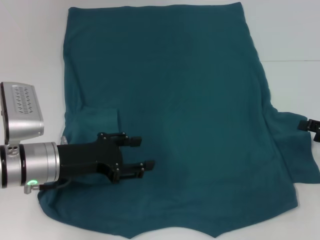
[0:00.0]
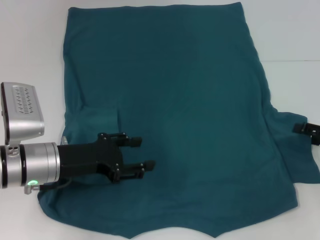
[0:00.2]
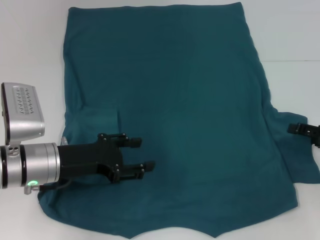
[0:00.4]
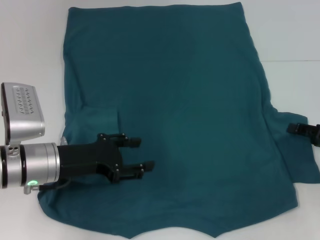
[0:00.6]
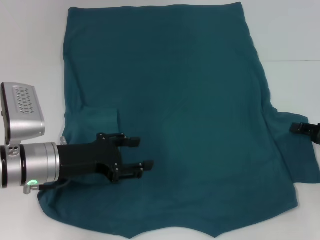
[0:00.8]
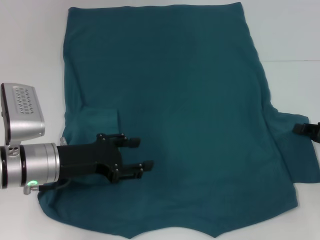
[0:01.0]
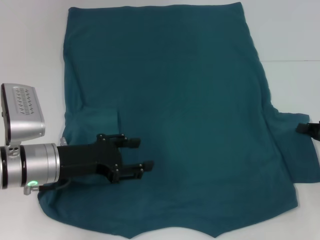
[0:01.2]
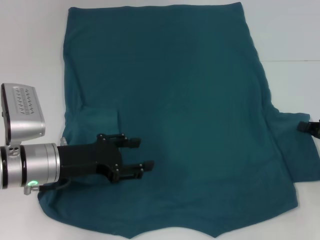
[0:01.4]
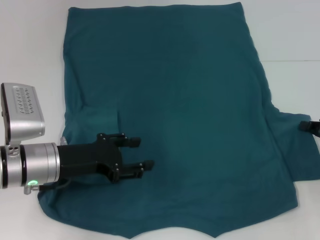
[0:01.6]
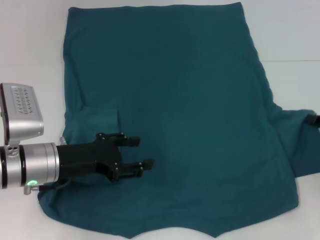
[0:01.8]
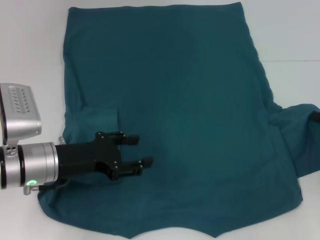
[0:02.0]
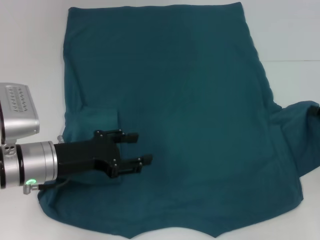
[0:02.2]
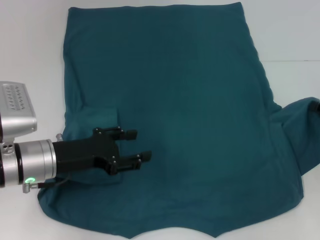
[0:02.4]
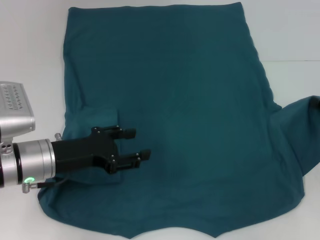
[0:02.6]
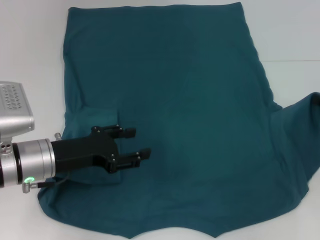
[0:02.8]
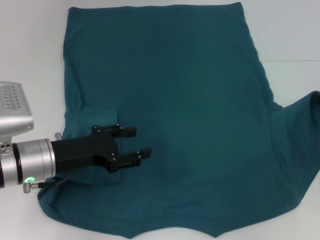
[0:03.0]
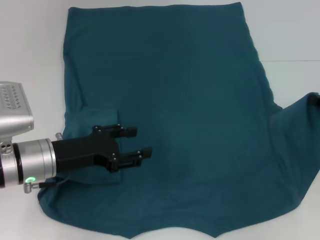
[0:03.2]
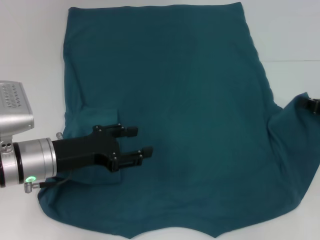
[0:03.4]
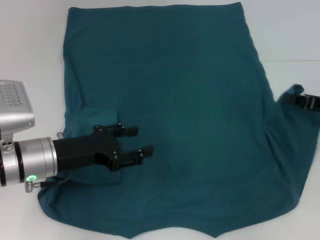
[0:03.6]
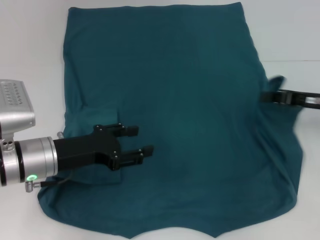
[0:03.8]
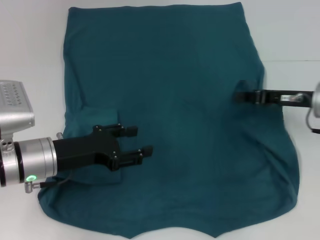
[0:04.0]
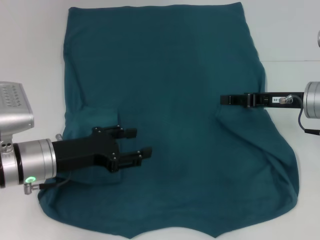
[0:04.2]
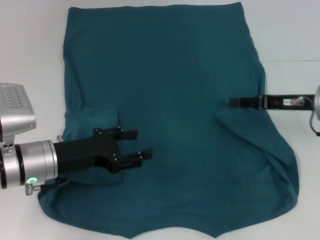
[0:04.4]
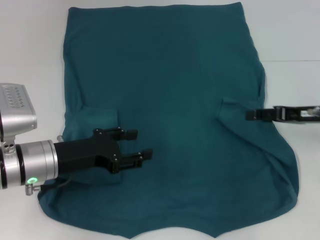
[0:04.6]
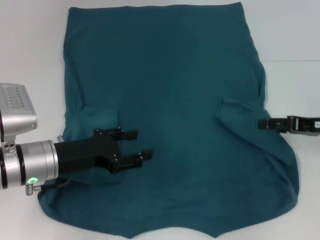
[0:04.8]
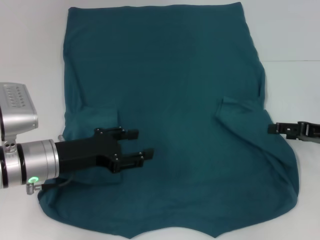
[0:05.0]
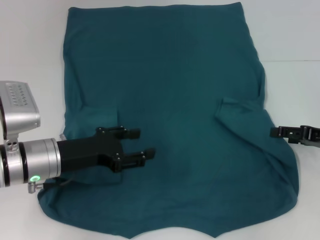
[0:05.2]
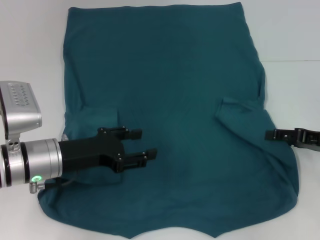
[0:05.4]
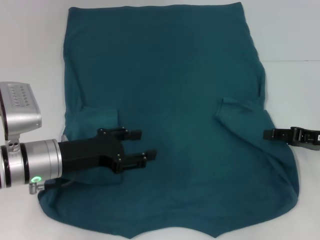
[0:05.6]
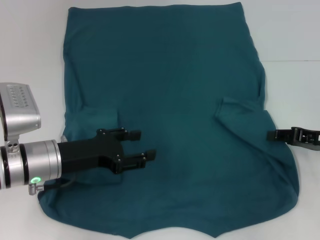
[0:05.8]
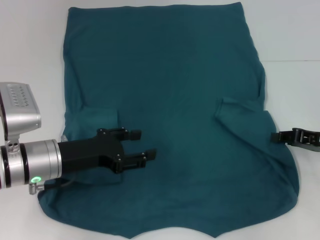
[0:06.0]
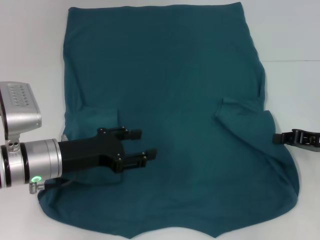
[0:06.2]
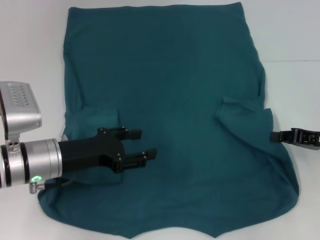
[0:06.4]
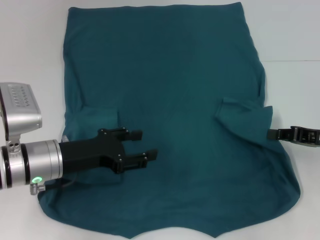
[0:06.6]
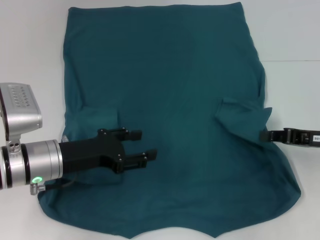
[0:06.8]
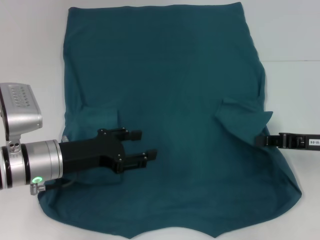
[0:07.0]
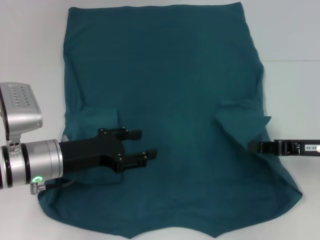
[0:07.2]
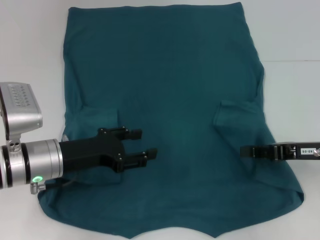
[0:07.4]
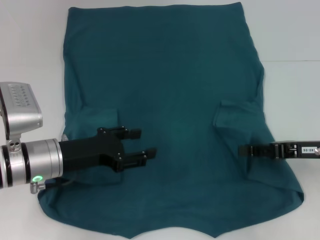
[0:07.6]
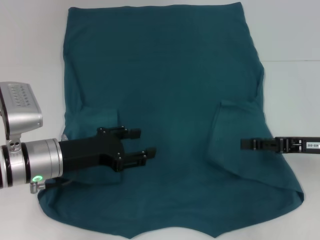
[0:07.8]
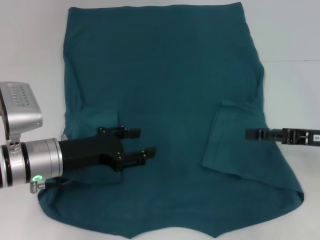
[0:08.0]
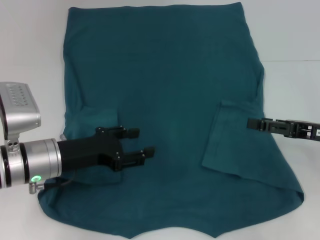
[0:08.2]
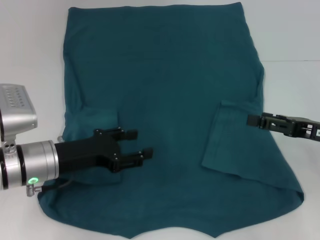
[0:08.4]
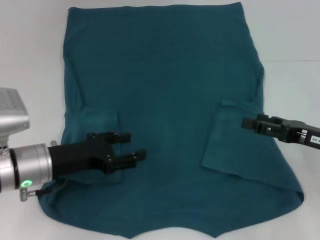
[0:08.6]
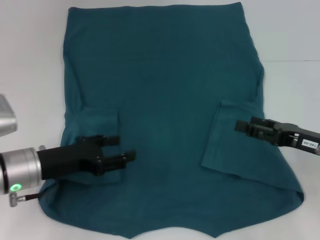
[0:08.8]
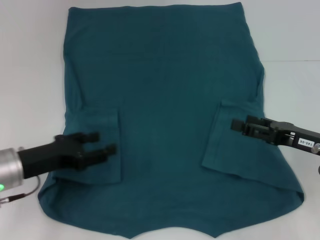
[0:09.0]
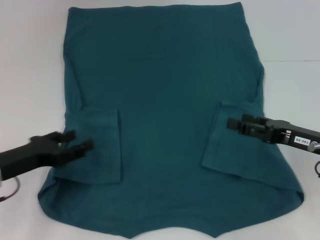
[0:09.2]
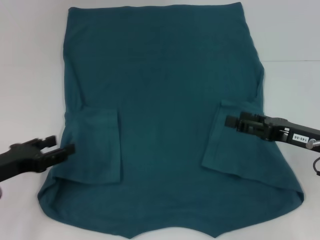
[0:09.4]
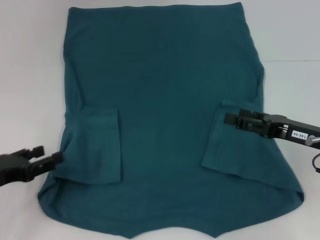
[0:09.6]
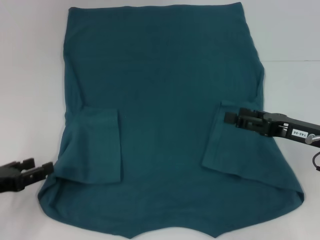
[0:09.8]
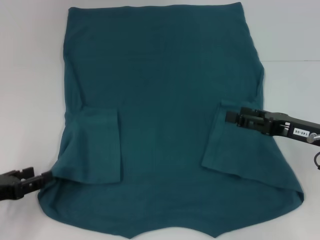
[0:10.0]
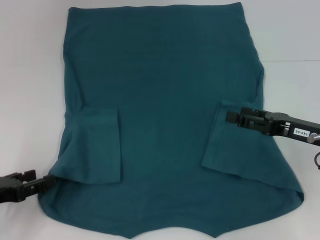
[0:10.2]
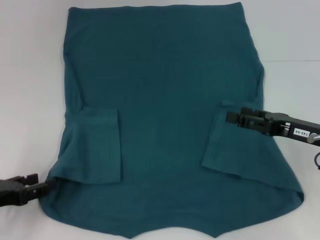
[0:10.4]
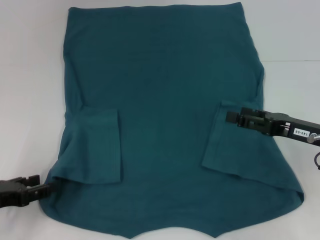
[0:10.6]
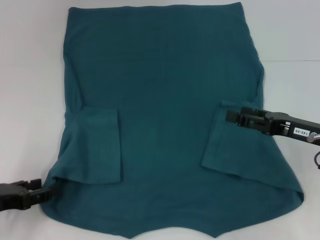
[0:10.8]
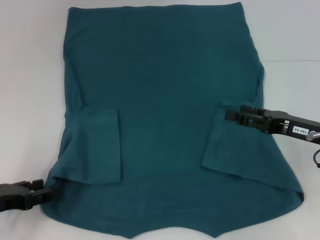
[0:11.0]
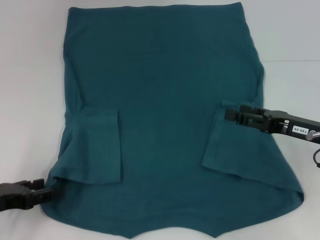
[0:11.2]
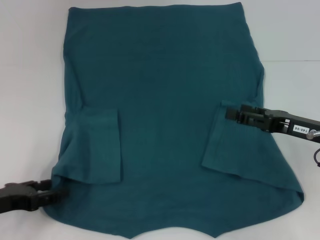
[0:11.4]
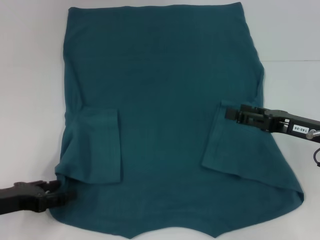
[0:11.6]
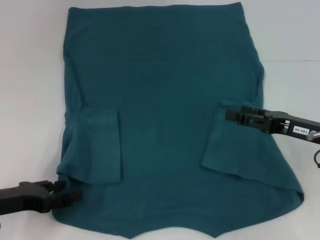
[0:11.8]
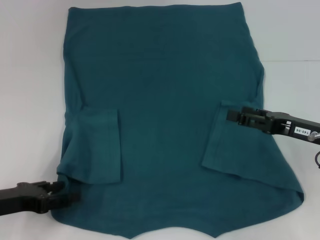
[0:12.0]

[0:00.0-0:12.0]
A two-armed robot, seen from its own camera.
Step, 0:00.0 to 0:07.8: Fold the bottom right sleeve to the right.
0:00.0 to 0:01.6: The right gripper closes.
0:03.0 to 0:04.4: The right gripper moves to the left, approximately 10 cm.
0:04.4 to 0:06.0: The right gripper moves to the right, approximately 5 cm, and opens, then closes again.
0:07.6 to 0:09.0: The left gripper heads to the left, covering roughly 5 cm, while the right gripper opens.
0:09.0 to 0:10.4: The left gripper is displaced to the left and backward by some 10 cm.
0:10.4 to 0:12.0: The grippers stay close to where they were, moving slightly.

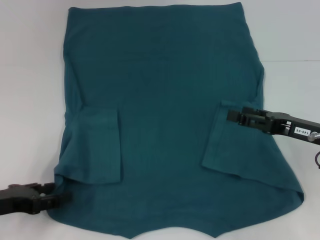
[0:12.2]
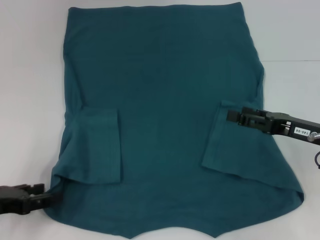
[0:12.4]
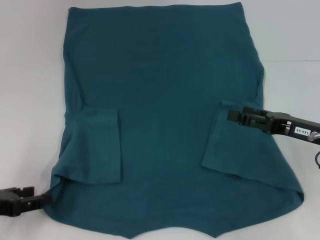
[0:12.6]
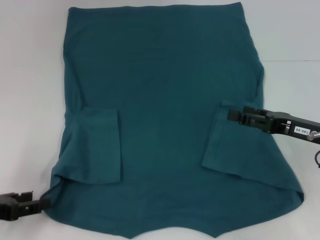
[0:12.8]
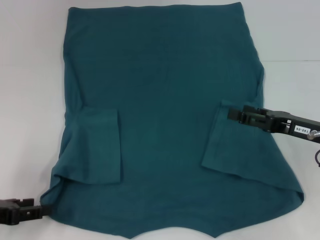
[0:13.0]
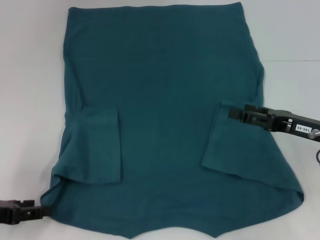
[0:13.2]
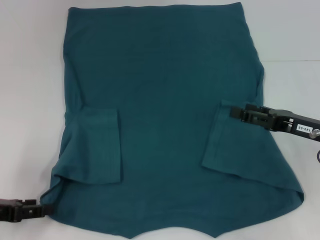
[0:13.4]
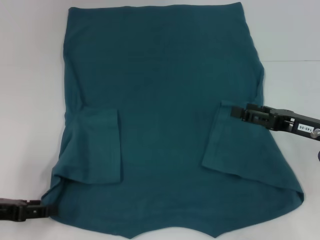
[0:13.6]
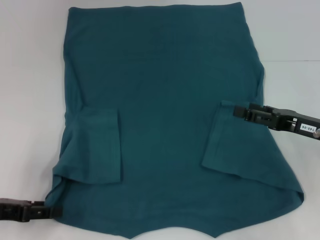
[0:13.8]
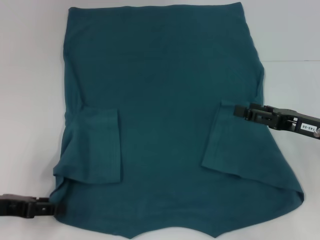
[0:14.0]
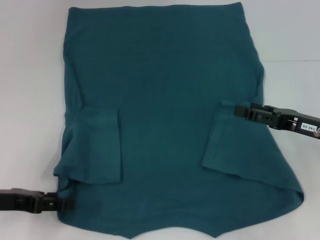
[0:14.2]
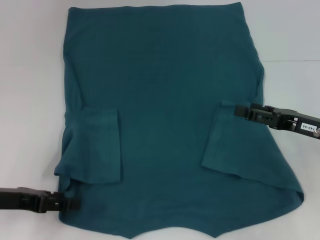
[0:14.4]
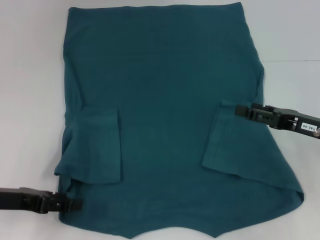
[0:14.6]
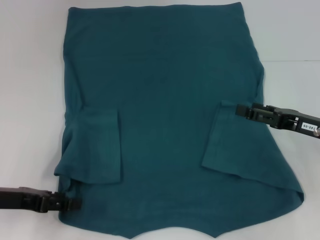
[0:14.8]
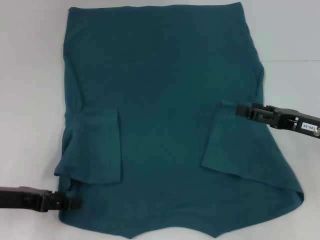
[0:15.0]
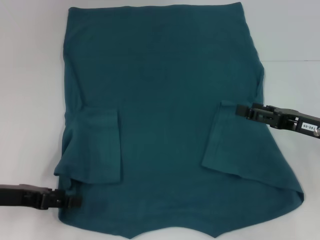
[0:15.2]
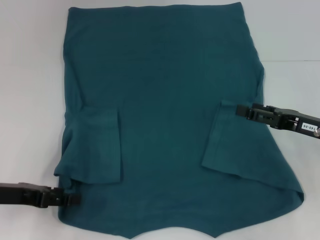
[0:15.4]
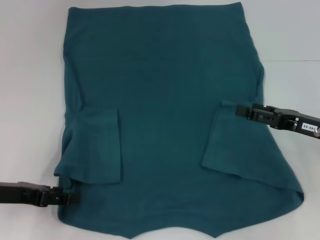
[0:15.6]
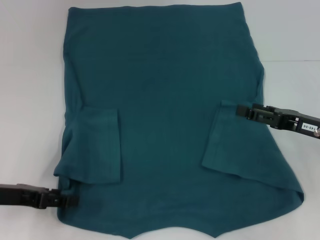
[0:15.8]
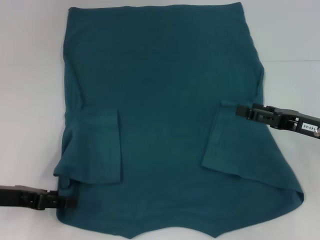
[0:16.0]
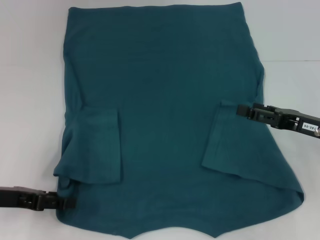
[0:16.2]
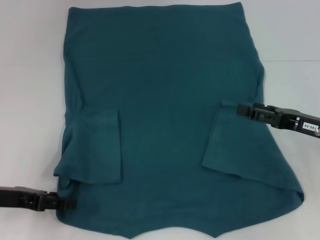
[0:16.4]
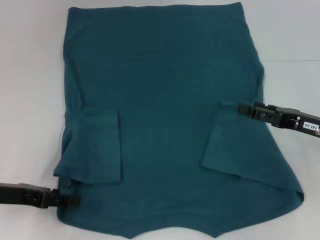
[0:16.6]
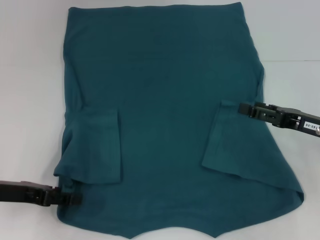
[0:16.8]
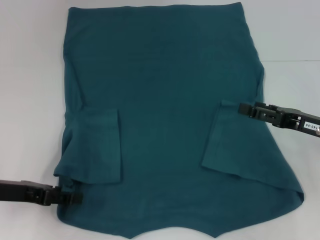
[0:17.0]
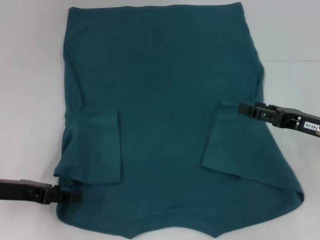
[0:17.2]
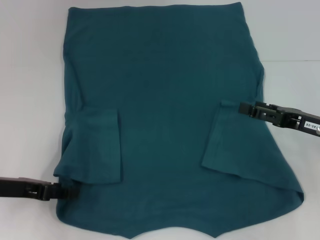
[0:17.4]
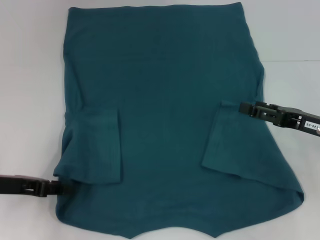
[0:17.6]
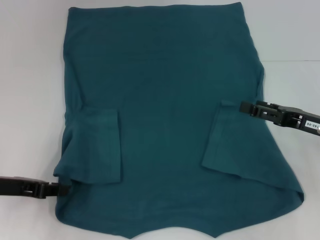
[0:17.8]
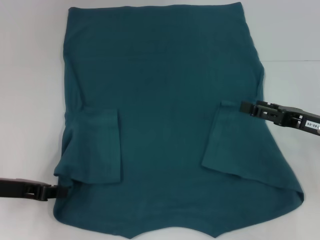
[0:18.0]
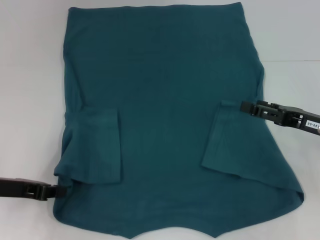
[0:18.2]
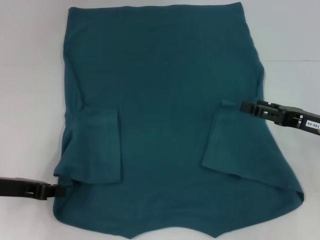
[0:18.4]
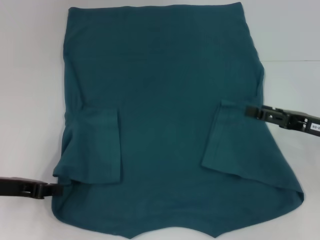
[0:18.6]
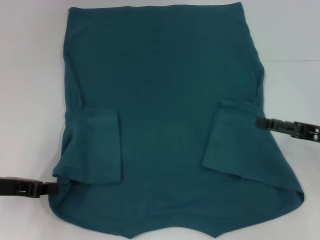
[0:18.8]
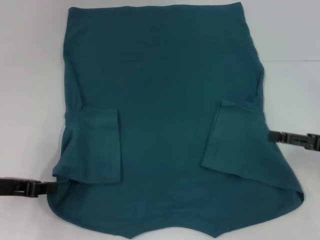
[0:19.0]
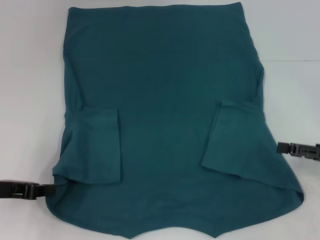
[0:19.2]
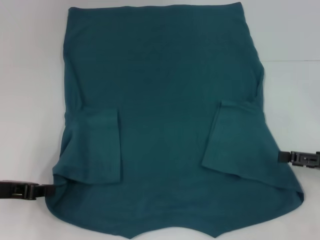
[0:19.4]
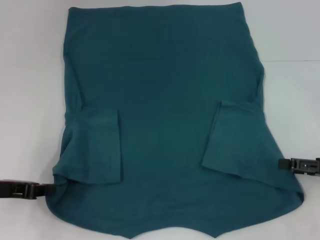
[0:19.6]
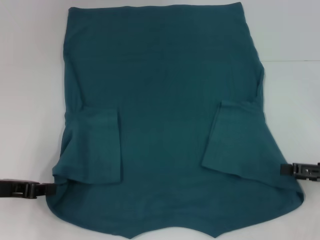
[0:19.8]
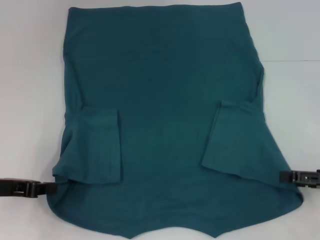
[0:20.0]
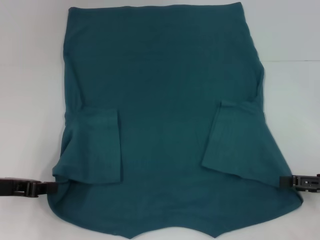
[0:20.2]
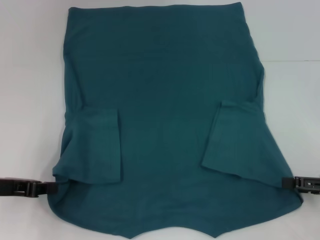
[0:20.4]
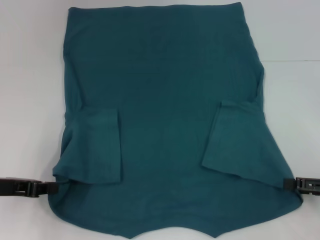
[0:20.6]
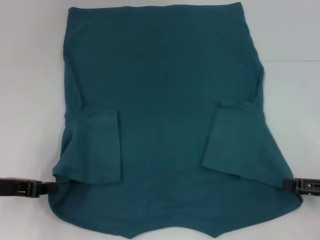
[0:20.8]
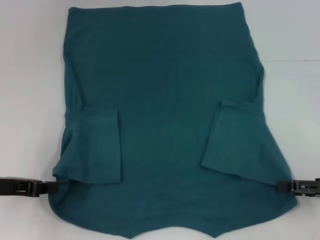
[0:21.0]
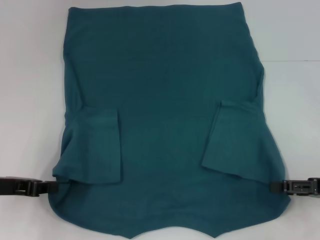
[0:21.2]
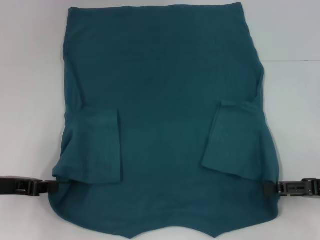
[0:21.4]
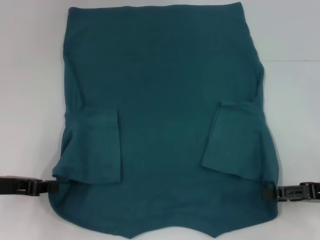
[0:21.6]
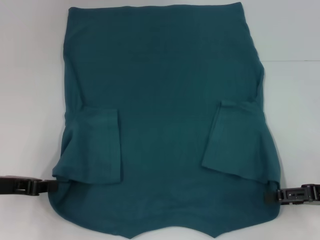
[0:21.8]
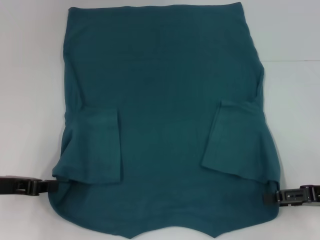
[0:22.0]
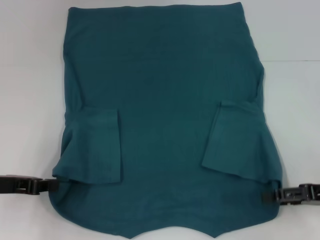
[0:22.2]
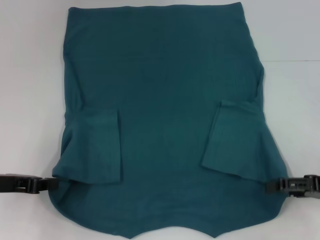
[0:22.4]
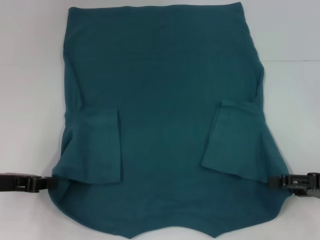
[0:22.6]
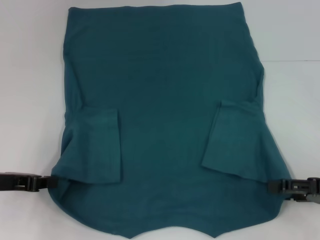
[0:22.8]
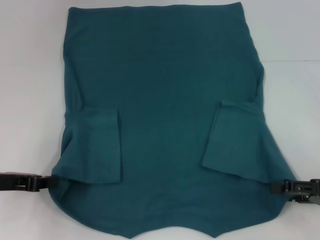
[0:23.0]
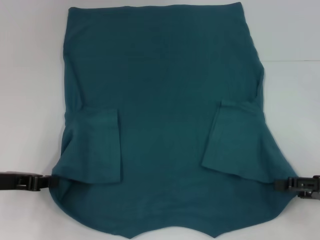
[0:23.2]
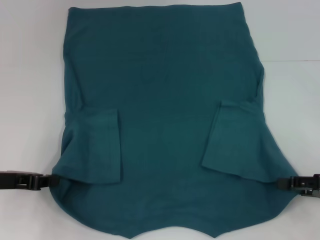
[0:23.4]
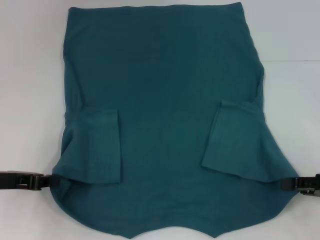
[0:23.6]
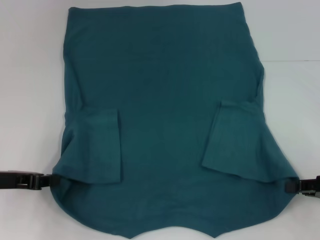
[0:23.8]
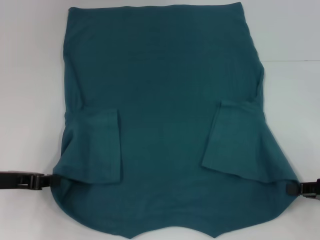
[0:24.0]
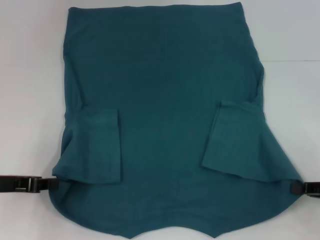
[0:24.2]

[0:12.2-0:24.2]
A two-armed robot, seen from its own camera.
Step, 0:12.2 to 0:18.4: Grab the bottom left corner with your left hand.
0:12.2 to 0:15.2: The grippers stay close to where they were, moving slightly.
0:15.2 to 0:16.6: Both grippers stay about where they are.
0:16.6 to 0:18.2: The left gripper closes up.
0:18.2 to 0:19.8: The right gripper heads to the right, covering about 5 cm.
0:19.8 to 0:22.6: There are only small adjustments of the grippers.
0:22.6 to 0:24.2: The right gripper closes its fingers.
